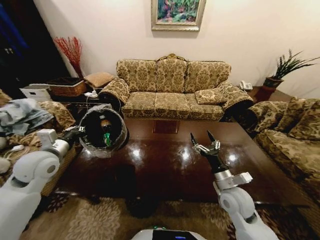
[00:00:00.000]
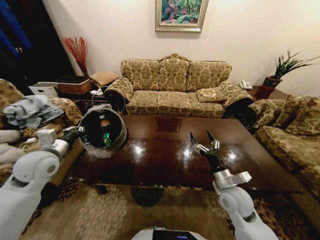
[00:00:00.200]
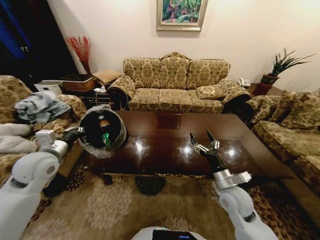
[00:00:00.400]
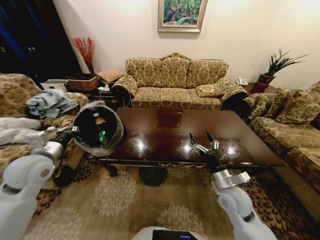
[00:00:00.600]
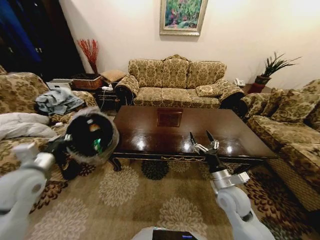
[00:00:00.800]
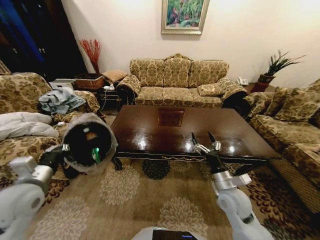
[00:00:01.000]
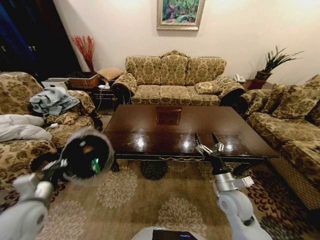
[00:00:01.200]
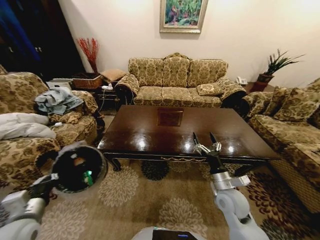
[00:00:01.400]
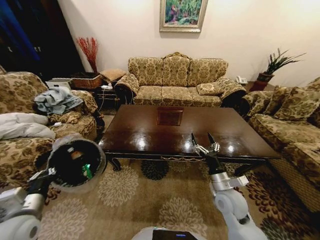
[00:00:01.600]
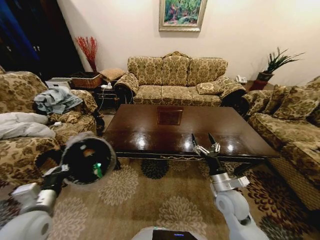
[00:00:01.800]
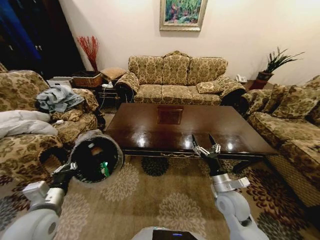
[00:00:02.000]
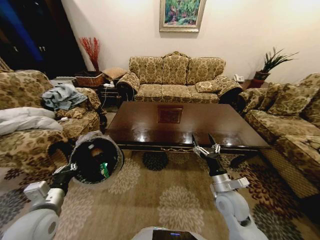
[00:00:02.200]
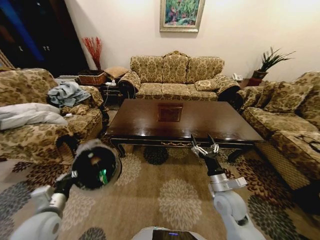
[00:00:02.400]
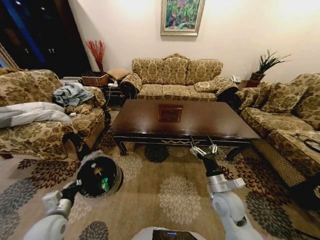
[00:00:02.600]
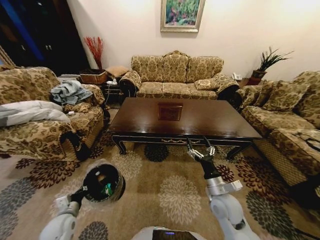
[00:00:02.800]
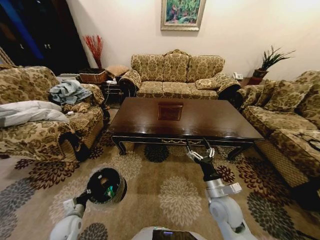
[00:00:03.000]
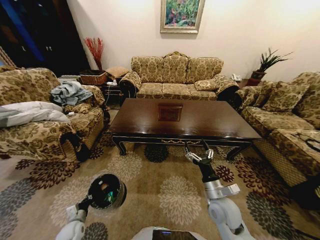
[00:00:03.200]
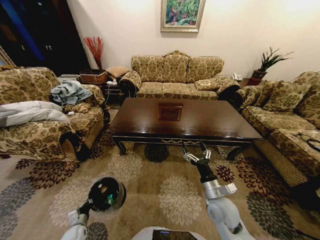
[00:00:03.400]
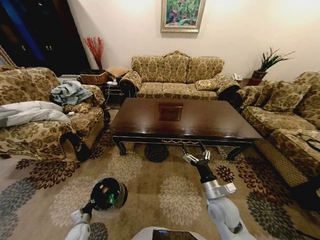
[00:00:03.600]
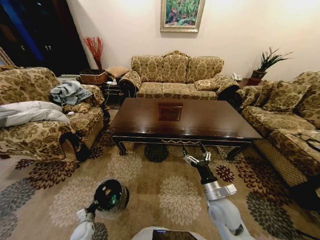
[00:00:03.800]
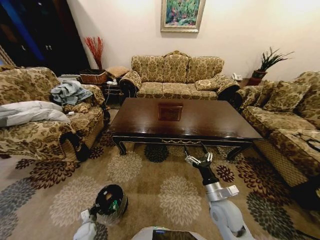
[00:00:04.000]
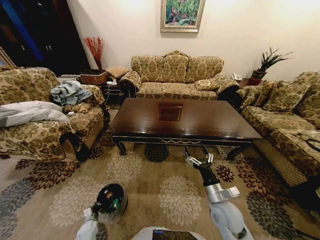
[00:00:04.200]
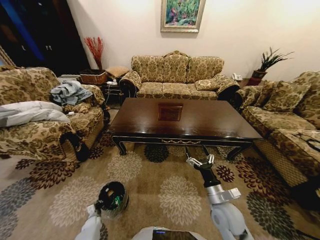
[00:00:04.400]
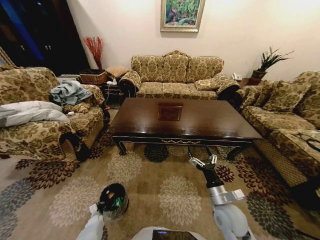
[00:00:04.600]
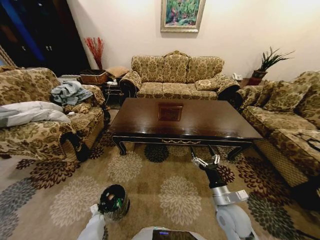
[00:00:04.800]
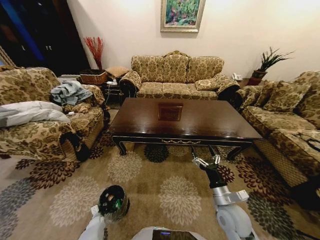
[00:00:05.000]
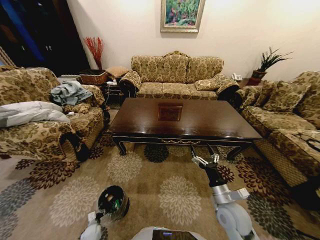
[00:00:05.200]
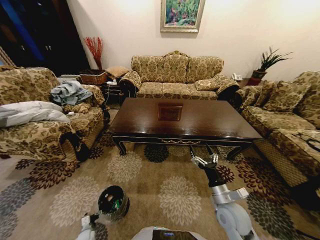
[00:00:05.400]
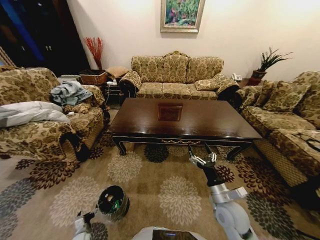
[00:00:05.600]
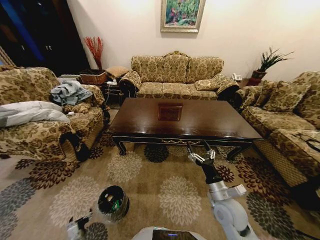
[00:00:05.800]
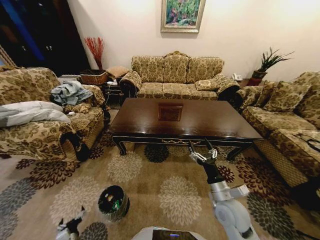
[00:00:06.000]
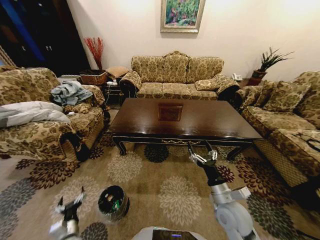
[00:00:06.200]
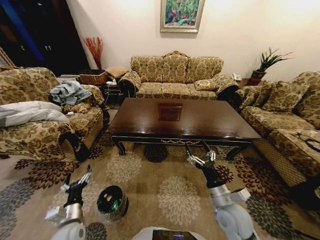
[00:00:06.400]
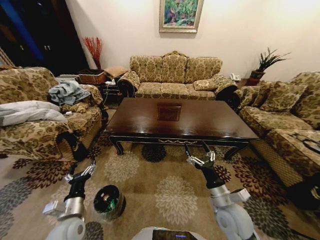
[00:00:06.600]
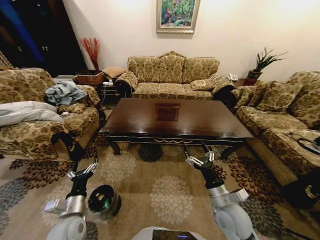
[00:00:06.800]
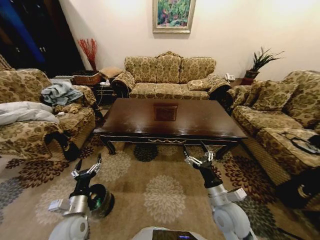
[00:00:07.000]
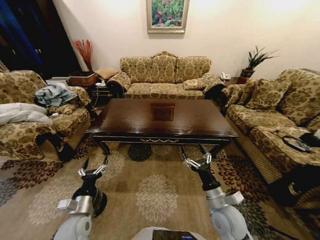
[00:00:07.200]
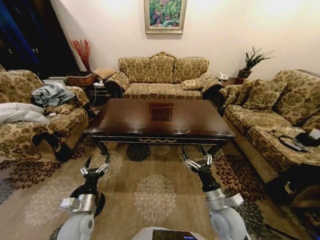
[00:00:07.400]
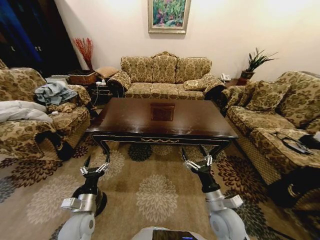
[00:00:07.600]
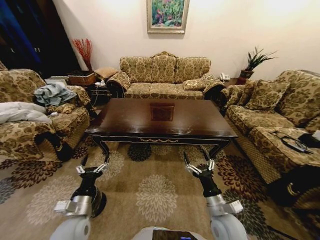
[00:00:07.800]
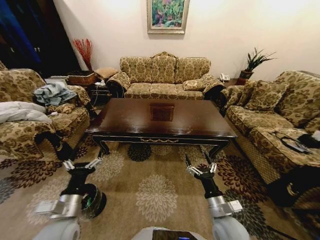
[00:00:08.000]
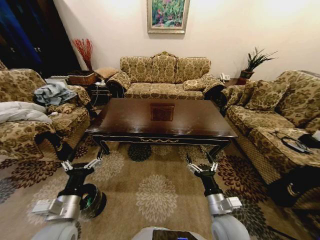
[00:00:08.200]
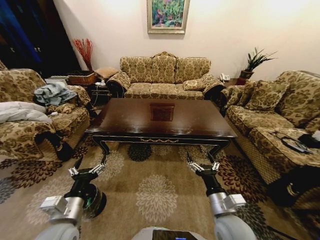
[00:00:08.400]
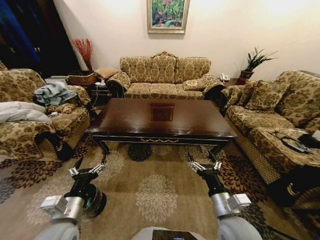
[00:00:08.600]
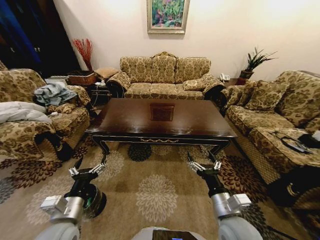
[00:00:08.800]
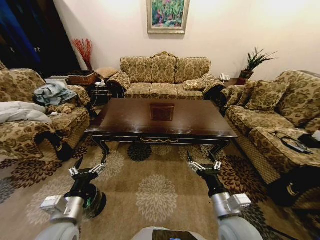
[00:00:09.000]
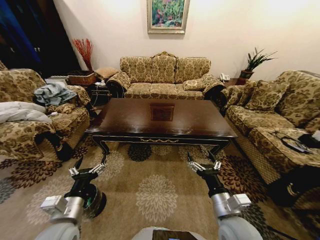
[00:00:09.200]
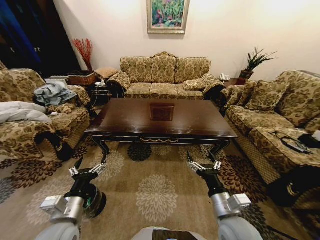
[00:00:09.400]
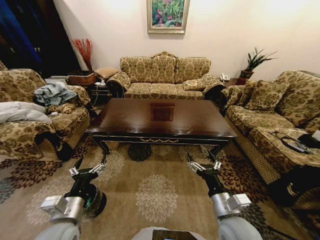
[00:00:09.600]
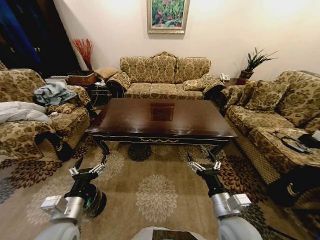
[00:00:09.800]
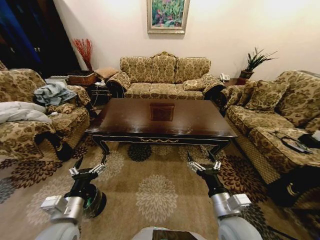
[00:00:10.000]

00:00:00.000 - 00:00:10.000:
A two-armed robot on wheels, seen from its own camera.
Task of the whole recording: Move to the front of the table and place the trash on the table into the trash bin.
00:00:00.000 - 00:00:01.400: The left gripper travels backward and downward by approximately 20 cm.
00:00:01.400 - 00:00:02.800: The left gripper goes about 15 cm downward.
00:00:02.800 - 00:00:04.200: The left gripper is displaced downward by some 30 cm.
00:00:04.200 - 00:00:05.800: The left gripper goes roughly 10 cm backward and upward, and opens its fingers.
00:00:05.800 - 00:00:07.200: The left gripper heads upward, covering roughly 25 cm.
00:00:07.200 - 00:00:08.600: The left gripper travels upward by some 10 cm; the right gripper heads upward, covering roughly 5 cm.
00:00:08.600 - 00:00:10.000: The two grippers keep their place.
